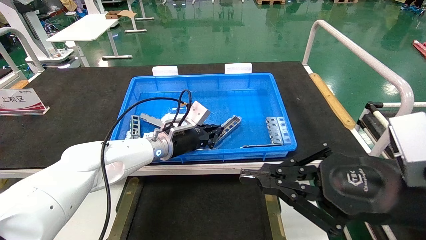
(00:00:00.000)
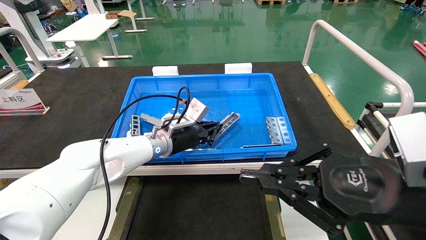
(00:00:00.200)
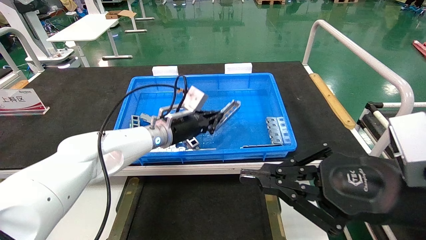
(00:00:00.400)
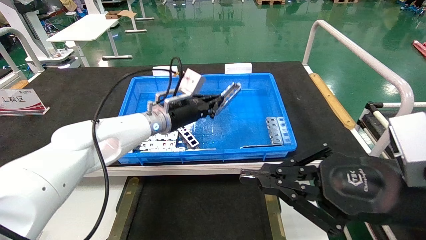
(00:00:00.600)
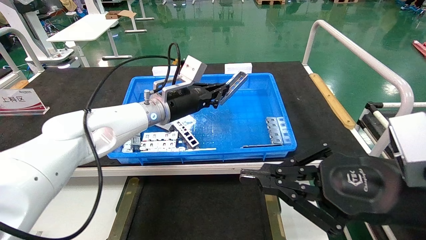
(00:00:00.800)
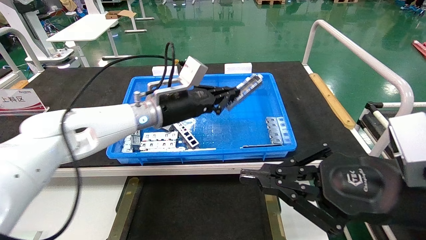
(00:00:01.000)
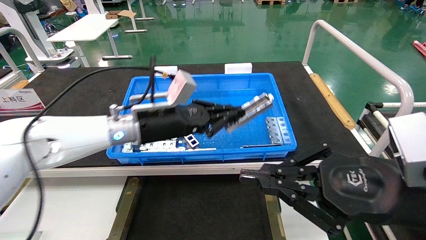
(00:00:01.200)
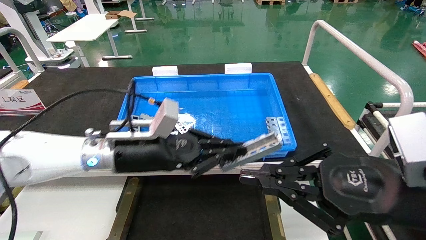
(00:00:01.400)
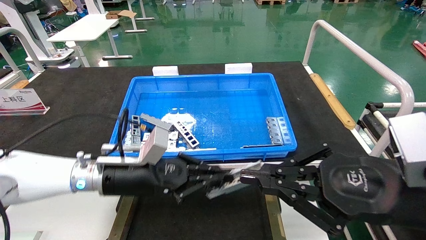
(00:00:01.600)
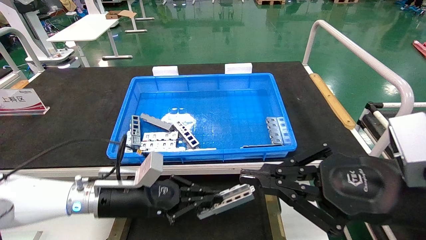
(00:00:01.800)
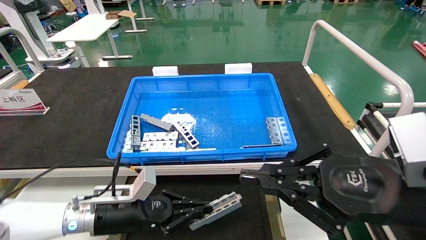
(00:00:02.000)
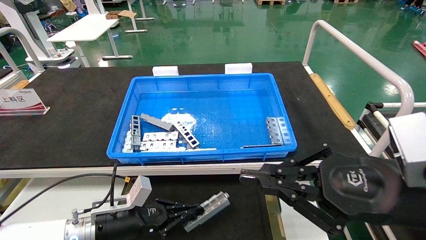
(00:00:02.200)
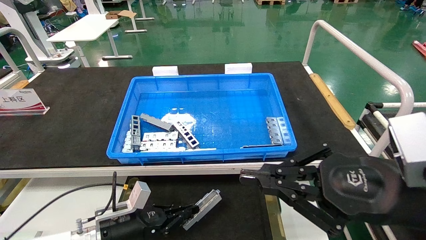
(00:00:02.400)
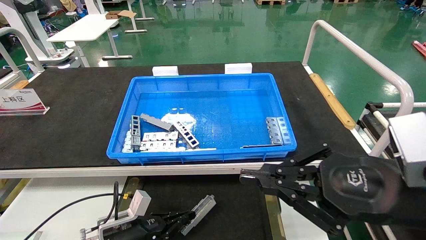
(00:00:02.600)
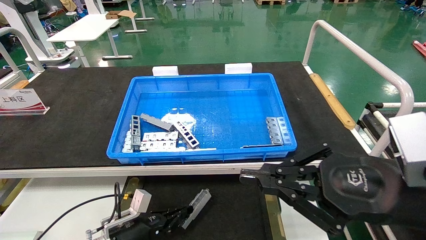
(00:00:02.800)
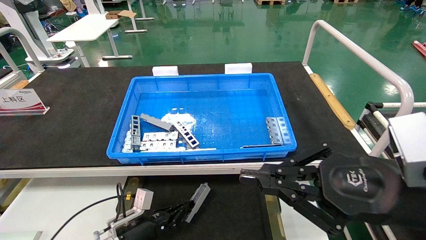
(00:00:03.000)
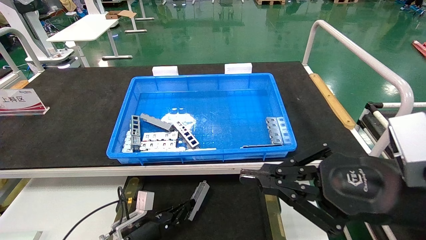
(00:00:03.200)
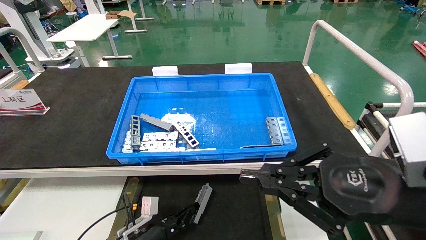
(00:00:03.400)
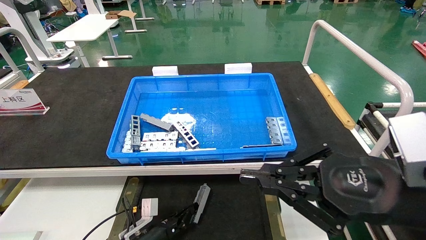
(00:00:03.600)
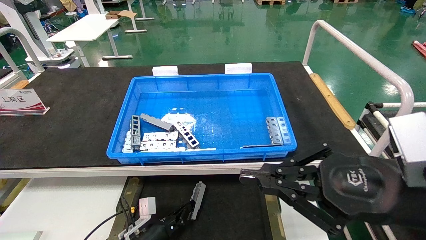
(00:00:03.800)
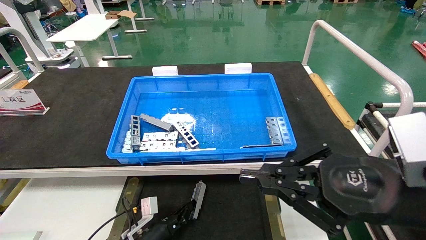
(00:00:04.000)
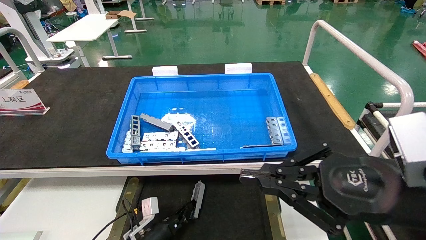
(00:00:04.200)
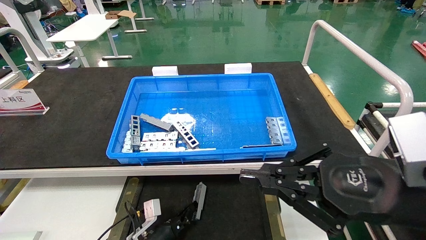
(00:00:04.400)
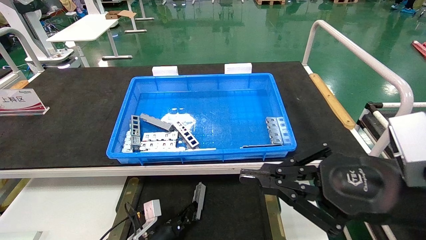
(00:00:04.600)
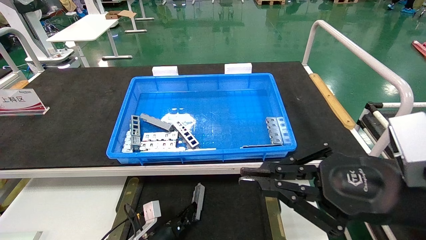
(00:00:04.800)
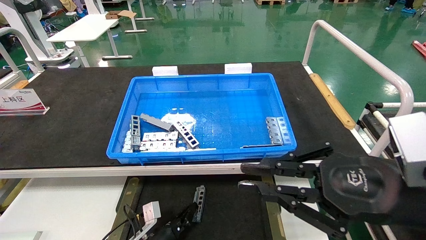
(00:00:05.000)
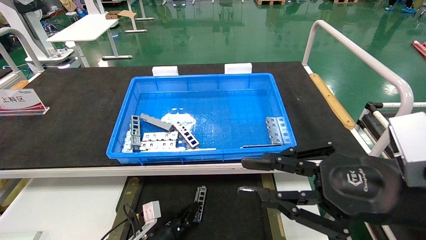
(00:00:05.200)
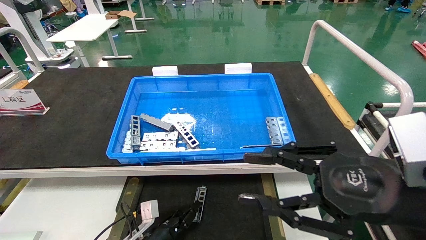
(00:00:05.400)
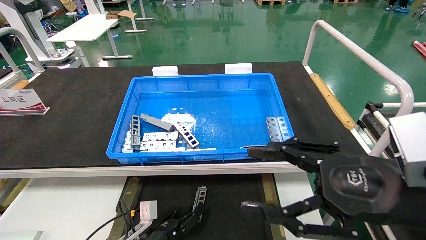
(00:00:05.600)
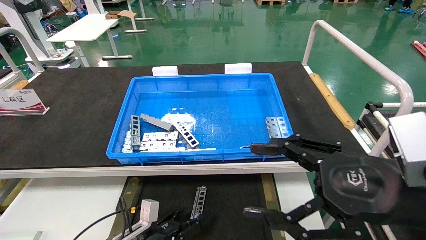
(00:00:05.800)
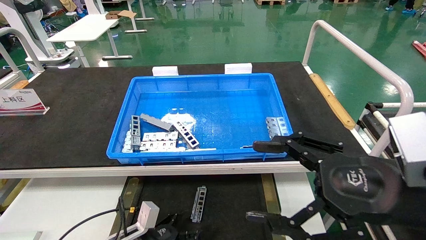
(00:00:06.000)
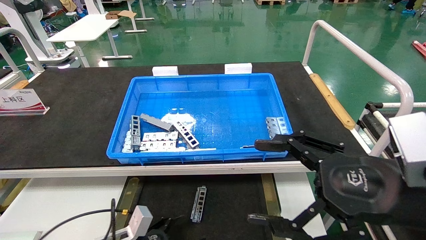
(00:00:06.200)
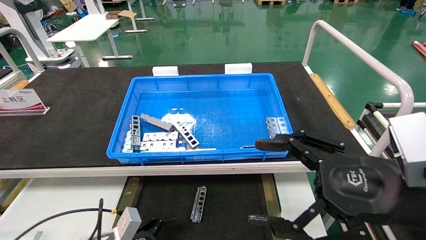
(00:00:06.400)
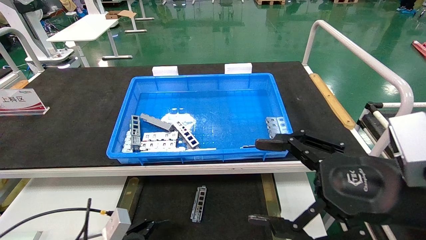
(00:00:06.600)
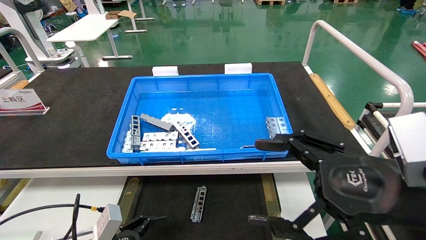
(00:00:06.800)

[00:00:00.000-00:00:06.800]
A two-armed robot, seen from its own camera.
Task of the whole recording: Grasp the part with one hand and place it on the black container.
Step, 00:00:00.000 to 00:00:05.000: Place the front USB bracket into the box.
00:00:00.000 to 00:00:01.400: The left gripper is displaced backward and to the left by roughly 15 cm.
00:00:01.400 to 00:00:02.800: The left gripper is displaced downward by roughly 25 cm.
00:00:02.800 to 00:00:04.000: The left gripper is displaced downward by about 5 cm.
00:00:04.000 to 00:00:05.400: The grippers move only a little.
00:00:05.400 to 00:00:06.800: The right gripper opens; the left gripper is displaced upward, to the left and backward by about 15 cm, and opens up.
